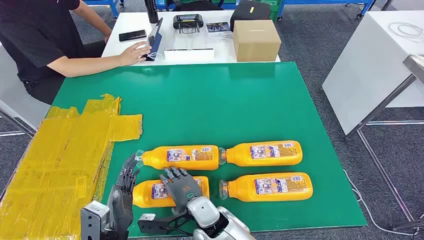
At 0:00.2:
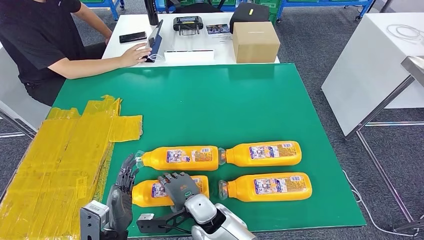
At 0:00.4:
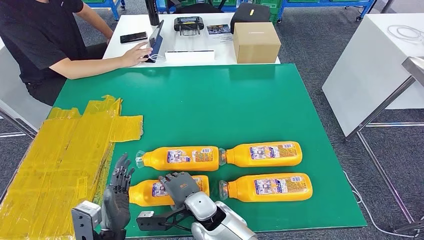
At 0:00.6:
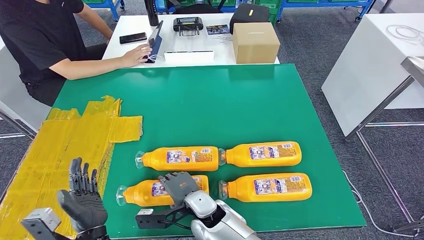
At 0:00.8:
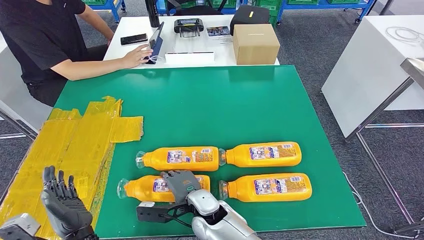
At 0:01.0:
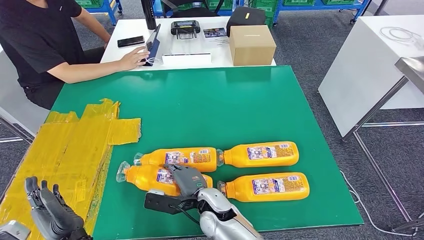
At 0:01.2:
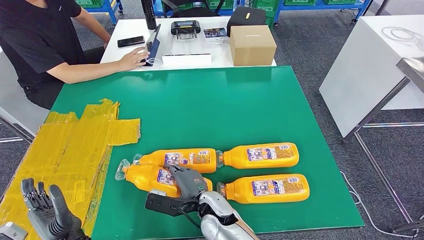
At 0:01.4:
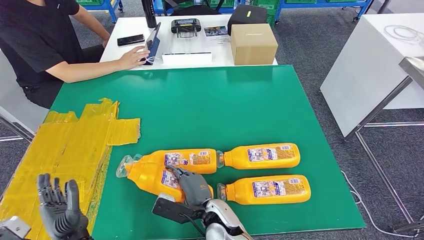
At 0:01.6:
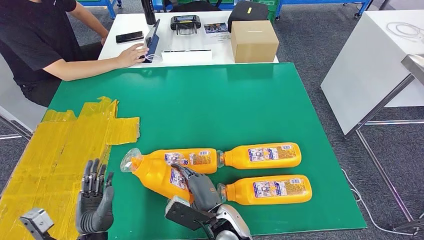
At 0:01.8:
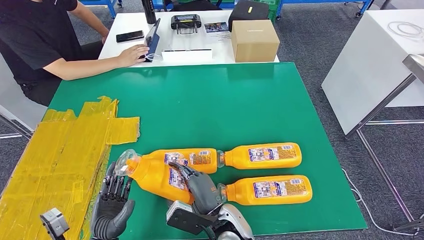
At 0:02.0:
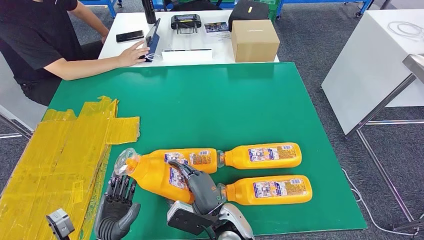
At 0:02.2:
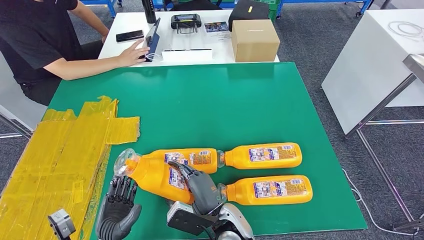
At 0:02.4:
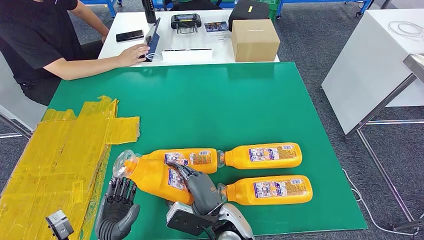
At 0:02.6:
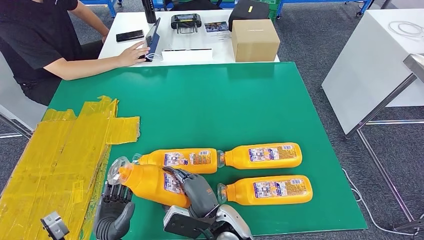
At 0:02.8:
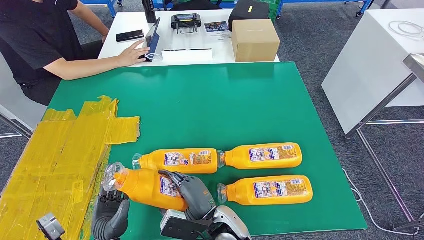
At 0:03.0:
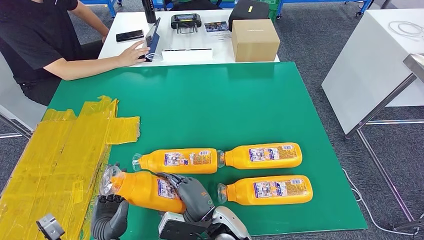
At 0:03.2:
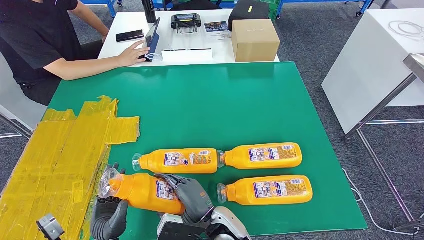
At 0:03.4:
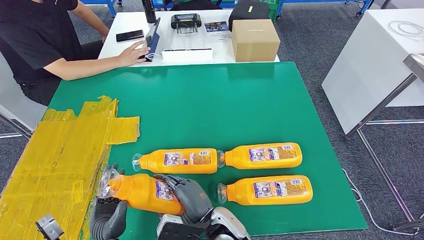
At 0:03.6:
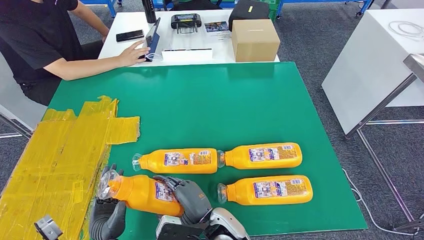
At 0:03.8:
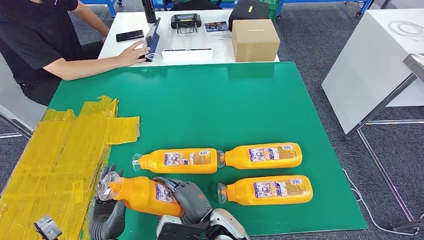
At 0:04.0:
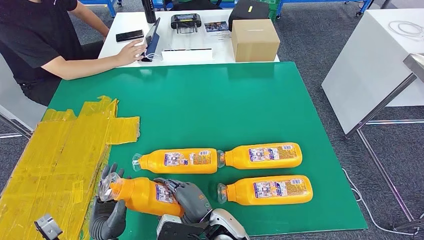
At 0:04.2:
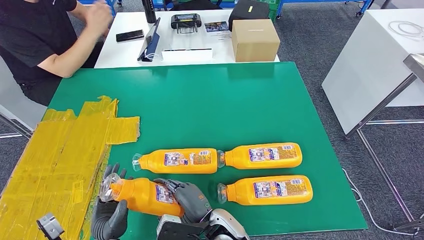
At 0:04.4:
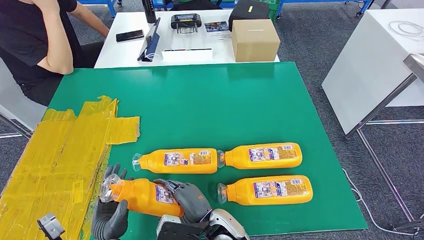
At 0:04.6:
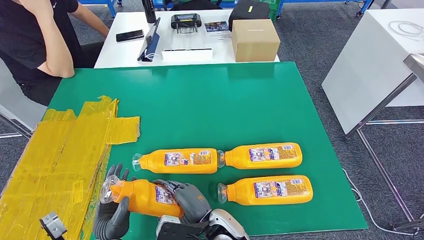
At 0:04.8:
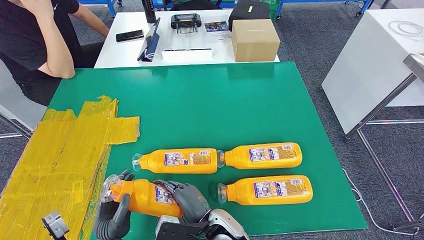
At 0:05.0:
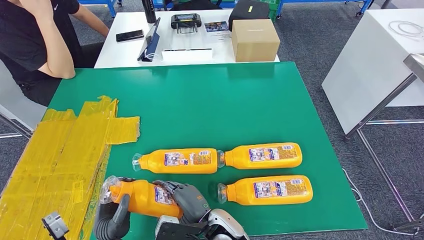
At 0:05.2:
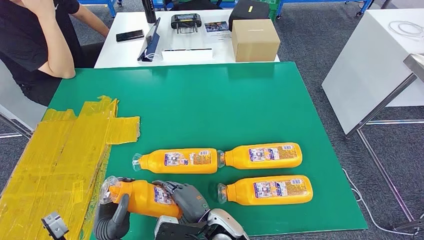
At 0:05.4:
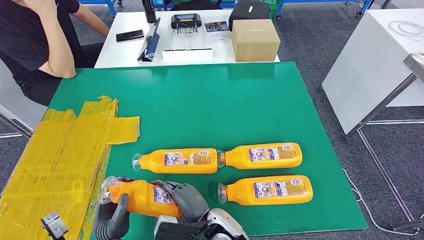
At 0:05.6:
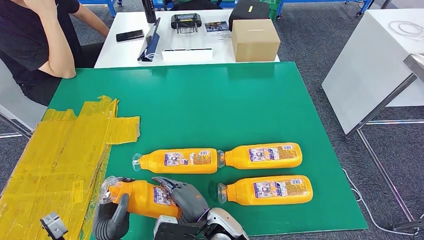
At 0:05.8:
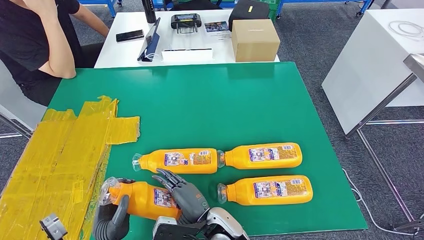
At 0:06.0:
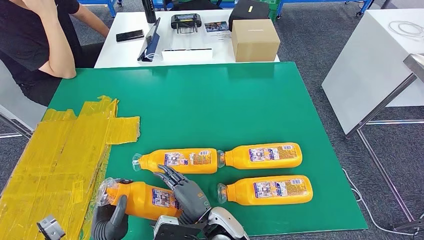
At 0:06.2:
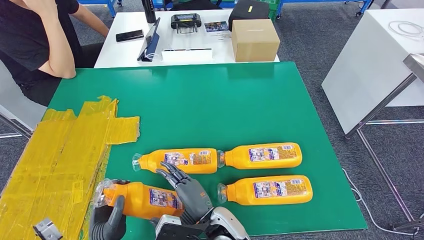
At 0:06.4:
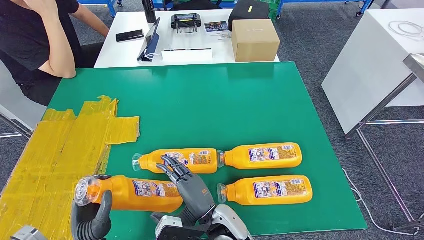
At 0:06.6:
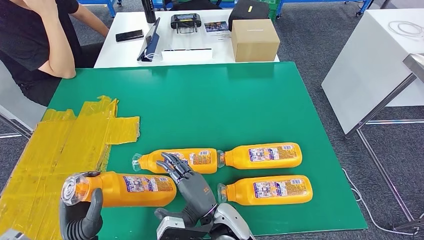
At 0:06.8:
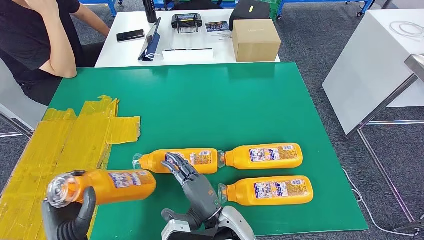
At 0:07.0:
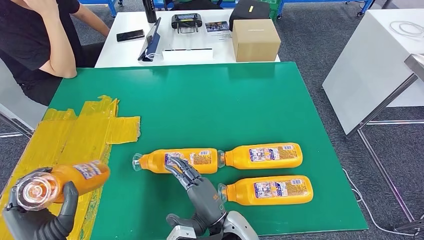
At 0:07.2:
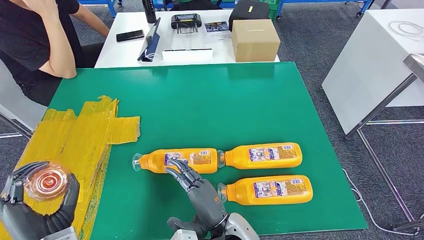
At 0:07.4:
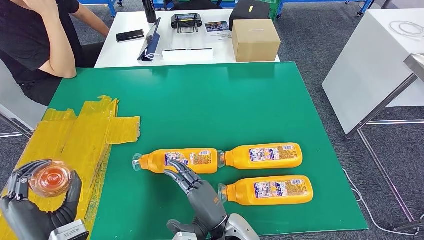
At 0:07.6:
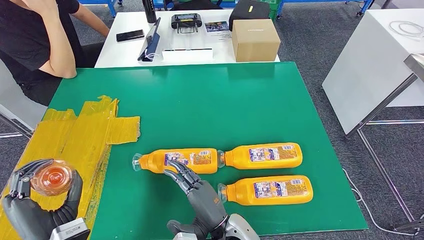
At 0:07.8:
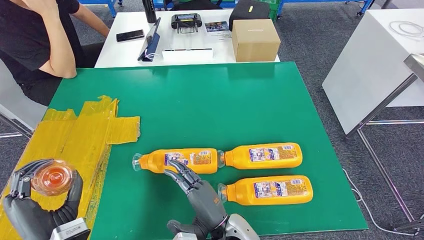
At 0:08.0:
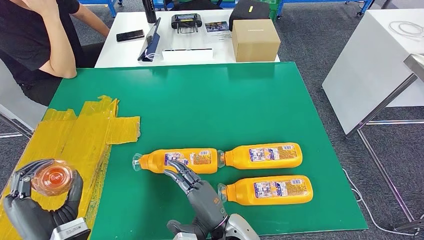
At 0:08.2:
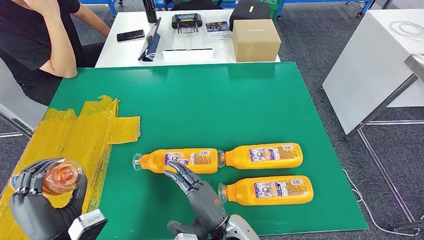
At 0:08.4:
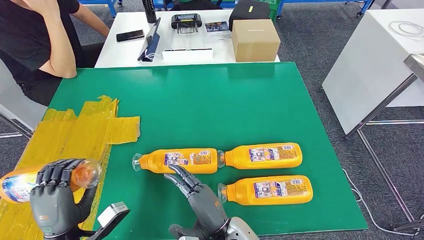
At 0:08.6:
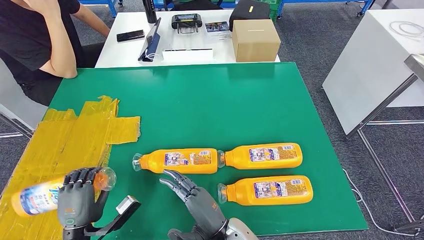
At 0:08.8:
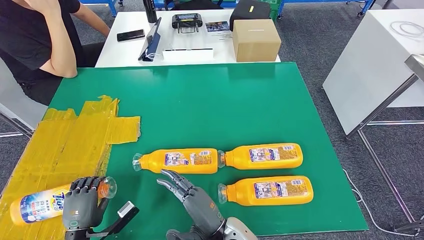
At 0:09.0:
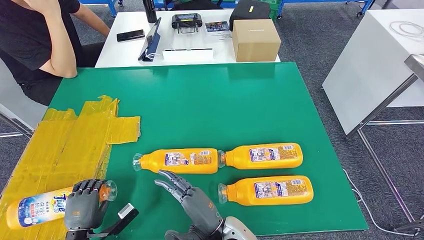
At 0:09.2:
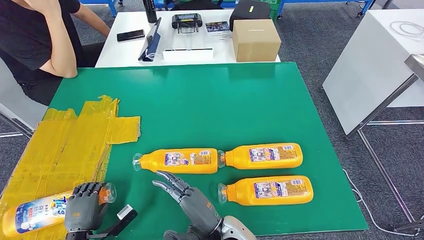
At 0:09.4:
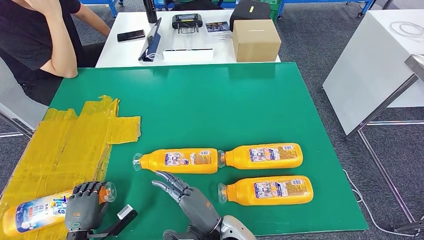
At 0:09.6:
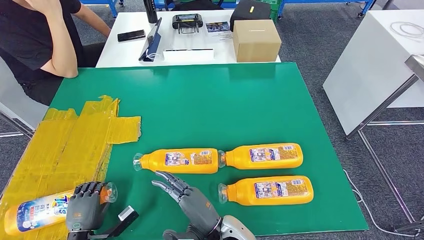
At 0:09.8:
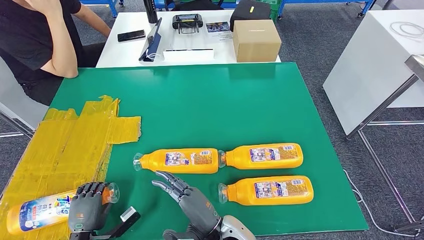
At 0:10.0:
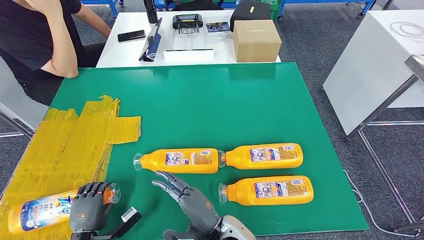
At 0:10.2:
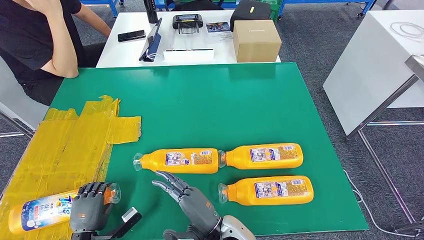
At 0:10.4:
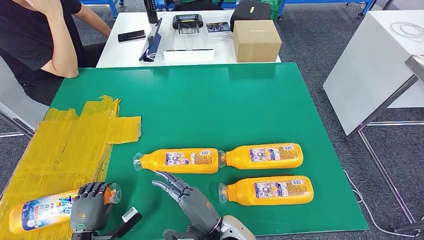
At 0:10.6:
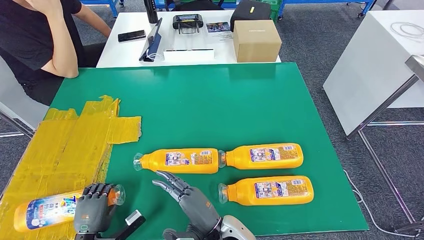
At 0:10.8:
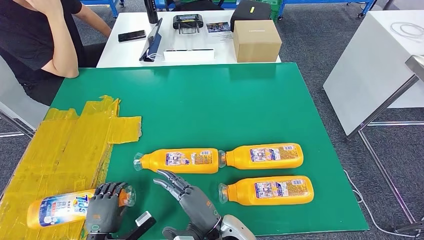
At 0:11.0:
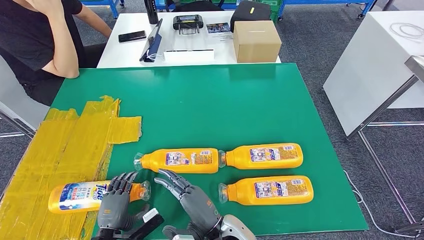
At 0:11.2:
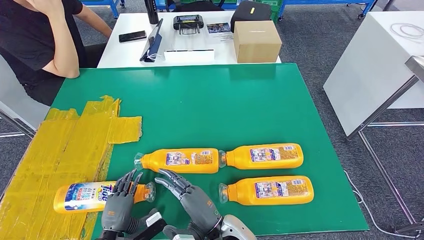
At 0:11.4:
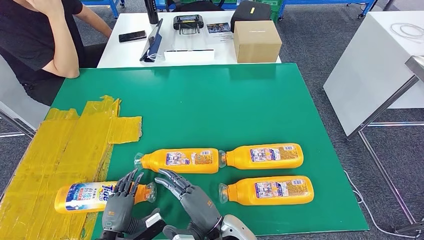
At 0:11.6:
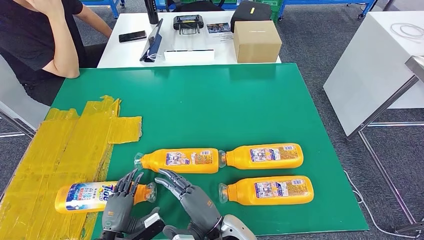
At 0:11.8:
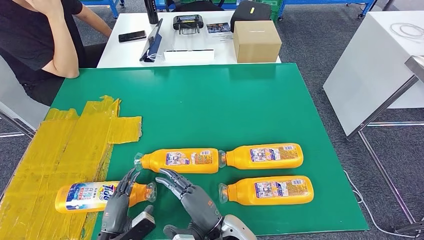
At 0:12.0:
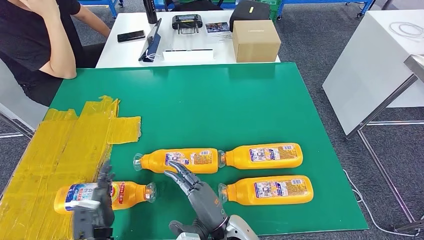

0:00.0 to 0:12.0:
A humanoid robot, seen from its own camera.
Step, 0:00.0 to 0:02.4: Take the fast-moving consumer goods bottle from the table.
Step, 0:03.4 to 0:12.0: Flip the fast-moving consumer goods bottle to the front side.
0:01.6 to 0:04.4: The hands make only small movements.
0:04.4 to 0:06.0: Both hands stay about where they are.
0:06.0 to 0:07.6: The right hand changes place by about 5 cm; the left hand travels upward and to the left by some 10 cm.
0:07.6 to 0:09.0: The left hand moves downward, roughly 15 cm.
0:09.0 to 0:10.4: There are only small adjustments of the hands.
0:10.4 to 0:12.0: The left hand heads to the right, covering roughly 5 cm.

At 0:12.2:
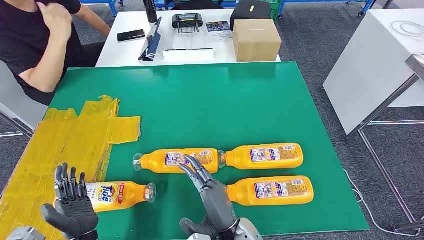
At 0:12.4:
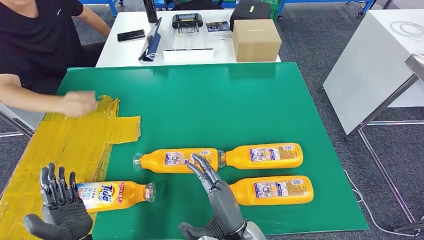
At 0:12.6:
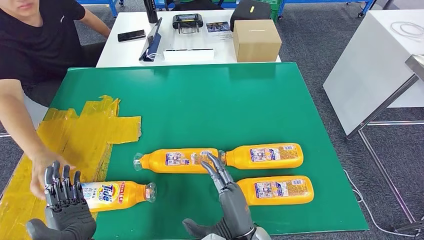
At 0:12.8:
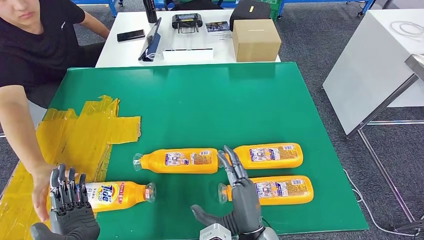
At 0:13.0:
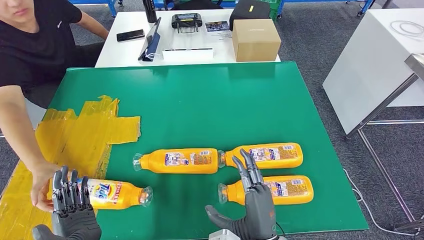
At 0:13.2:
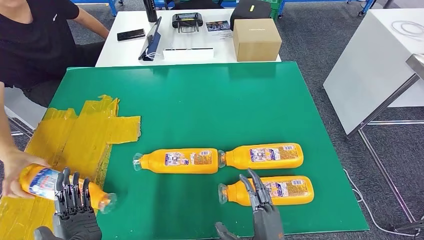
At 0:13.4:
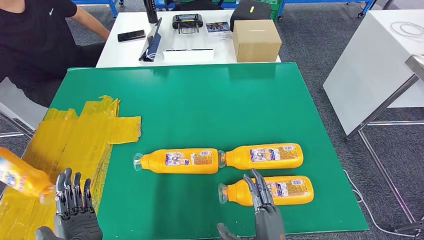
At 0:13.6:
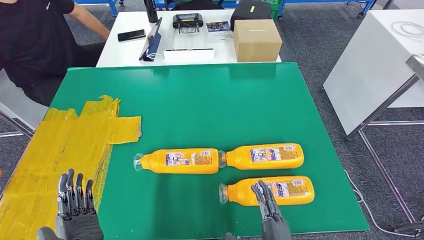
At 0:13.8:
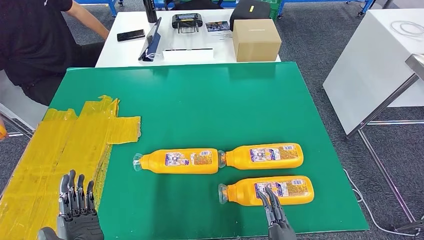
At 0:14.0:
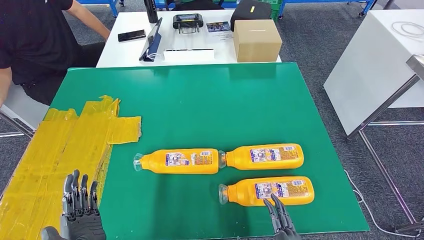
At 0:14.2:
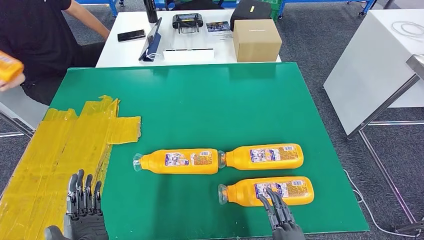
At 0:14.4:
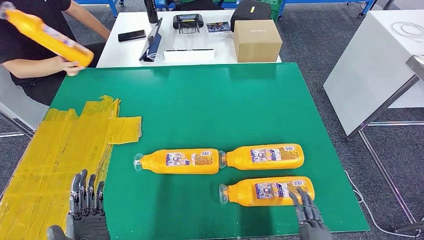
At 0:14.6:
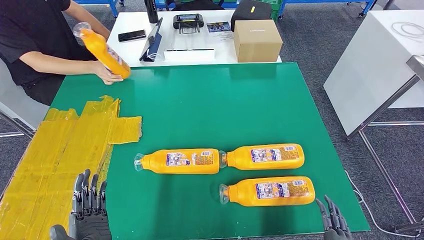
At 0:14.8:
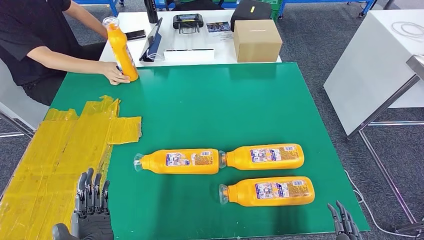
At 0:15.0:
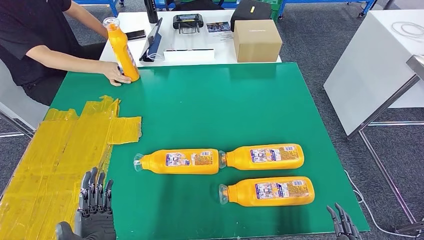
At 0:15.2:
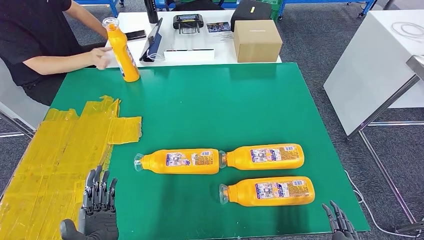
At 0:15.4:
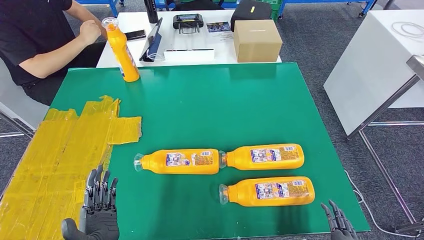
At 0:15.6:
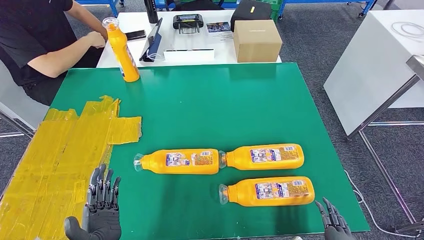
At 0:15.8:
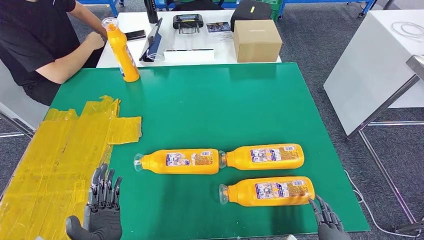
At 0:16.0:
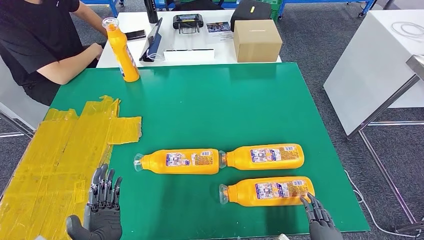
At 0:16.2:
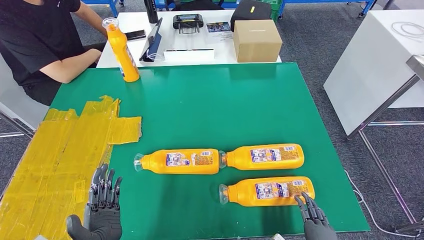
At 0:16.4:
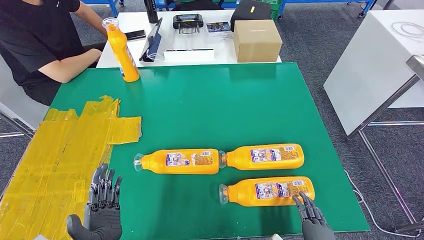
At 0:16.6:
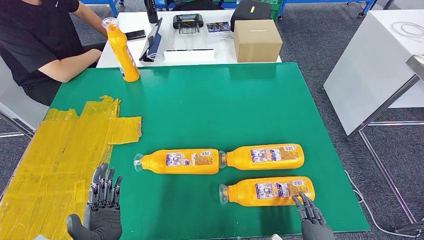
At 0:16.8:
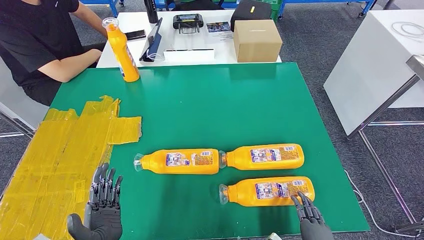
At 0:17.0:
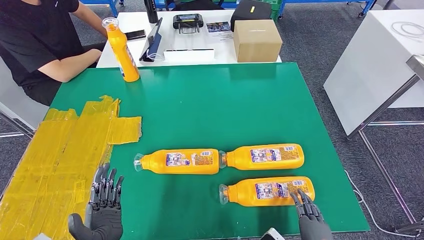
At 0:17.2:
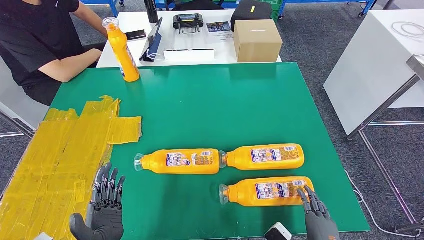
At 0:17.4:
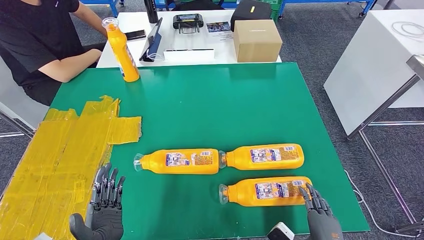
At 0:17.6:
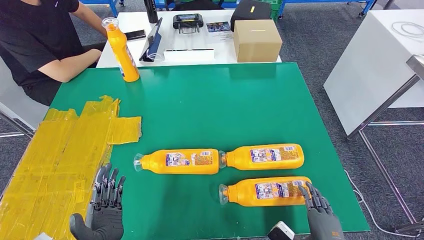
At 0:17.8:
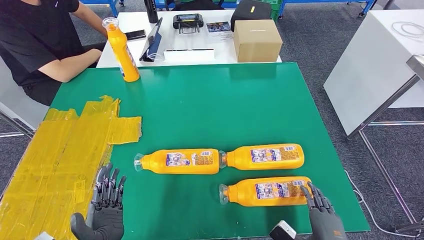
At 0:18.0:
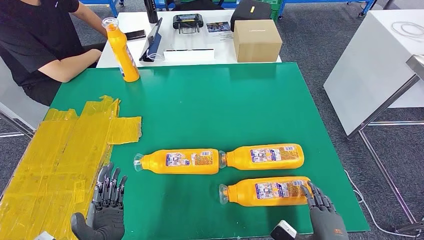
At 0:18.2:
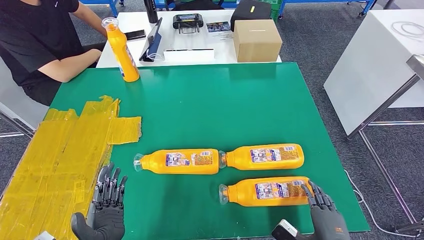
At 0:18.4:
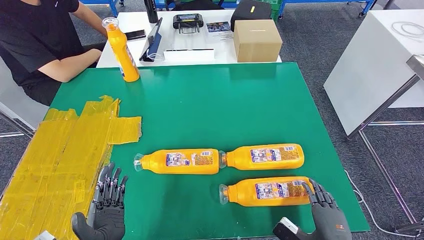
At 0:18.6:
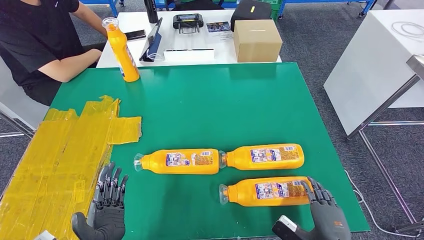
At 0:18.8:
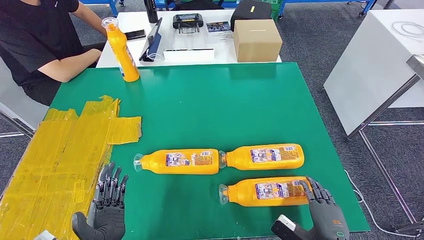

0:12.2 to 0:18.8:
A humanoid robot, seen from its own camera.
0:12.2 to 0:13.8: The left hand shifts by approximately 5 cm. Meanwhile the right hand heads backward and to the right, covering some 15 cm.
0:13.8 to 0:15.4: The right hand shifts approximately 15 cm to the right.
0:15.4 to 0:17.2: The right hand changes place by roughly 5 cm.
0:17.2 to 0:18.8: There are only small adjustments of the hands.
